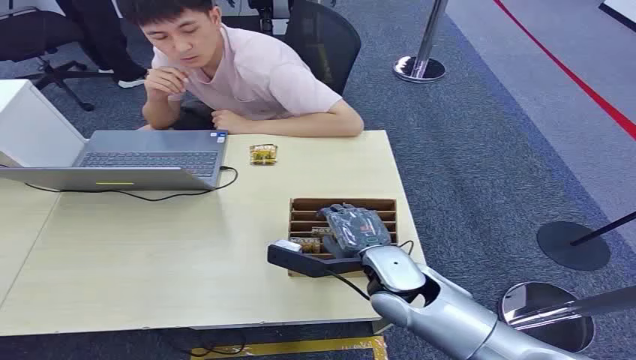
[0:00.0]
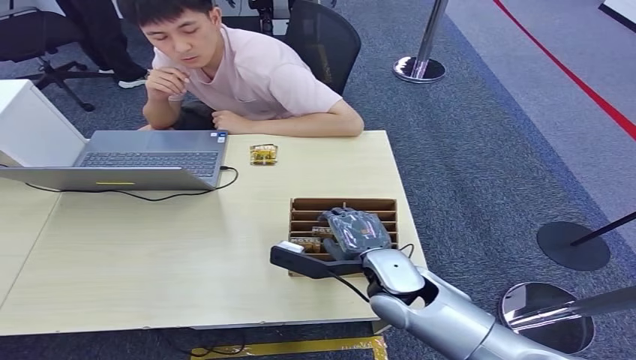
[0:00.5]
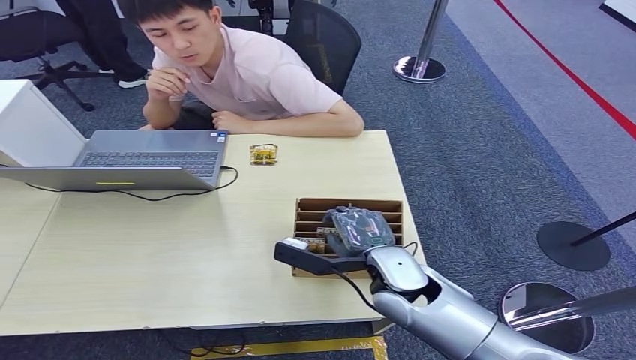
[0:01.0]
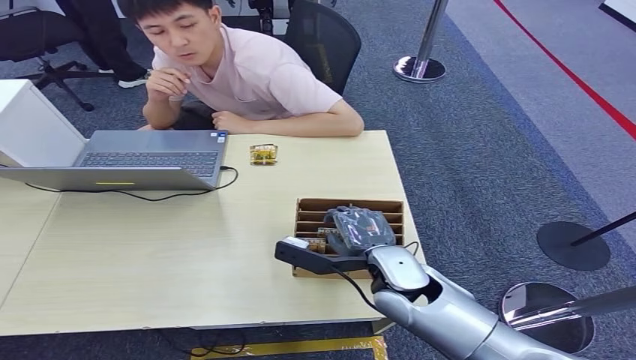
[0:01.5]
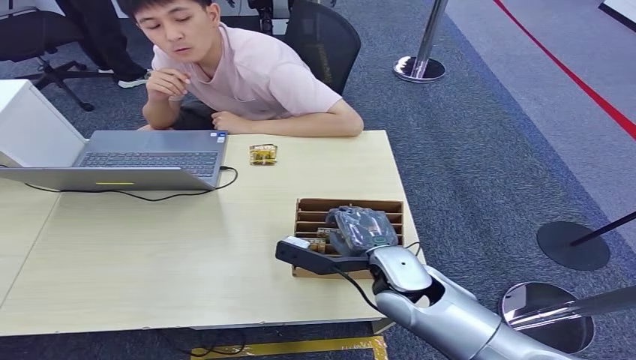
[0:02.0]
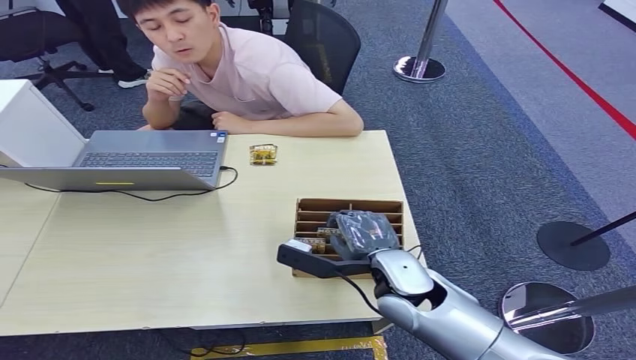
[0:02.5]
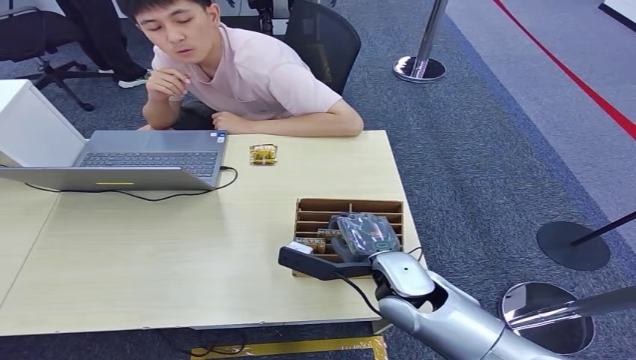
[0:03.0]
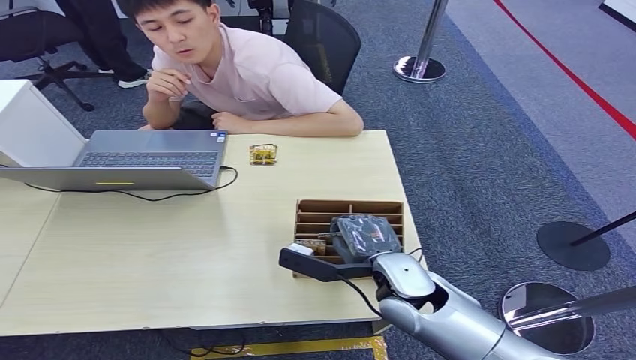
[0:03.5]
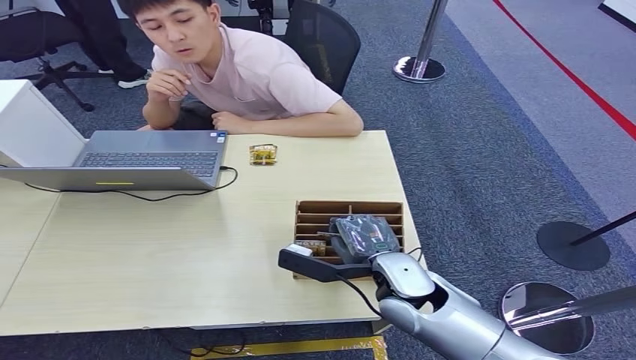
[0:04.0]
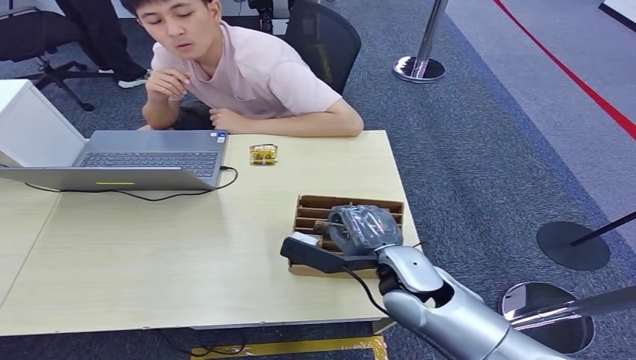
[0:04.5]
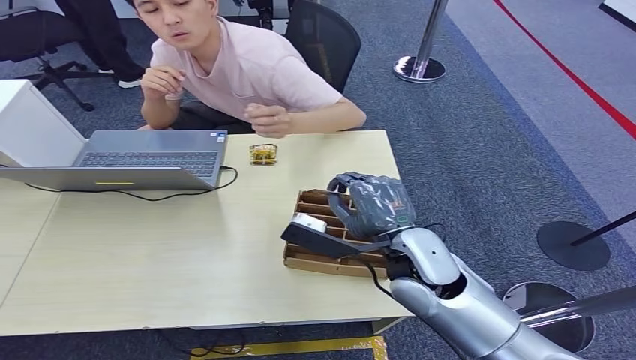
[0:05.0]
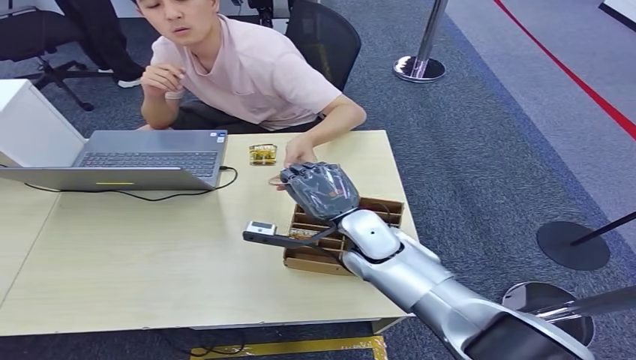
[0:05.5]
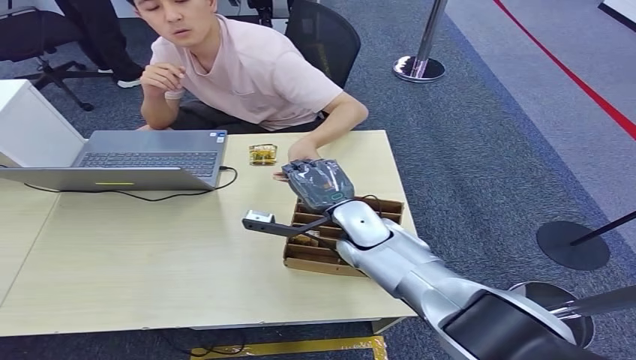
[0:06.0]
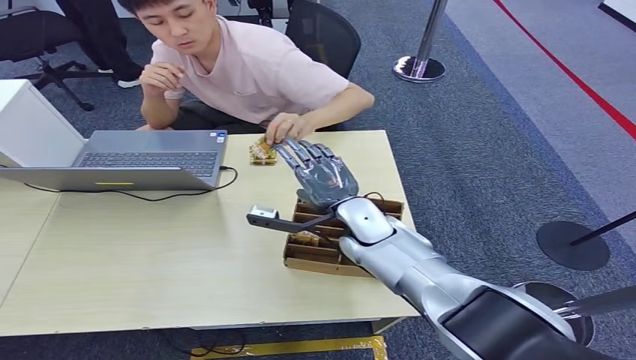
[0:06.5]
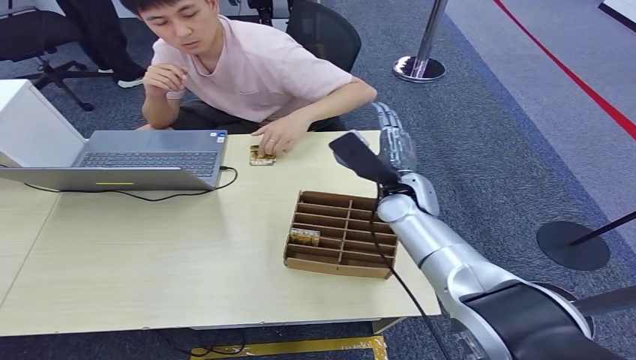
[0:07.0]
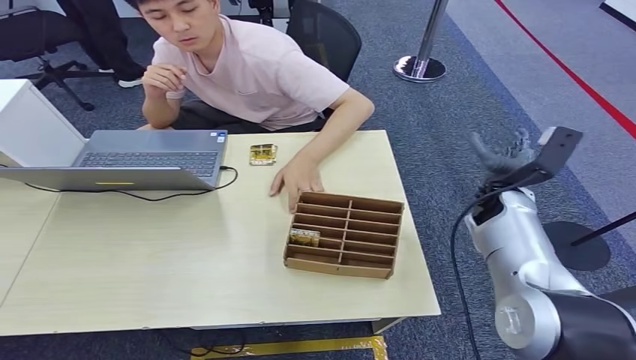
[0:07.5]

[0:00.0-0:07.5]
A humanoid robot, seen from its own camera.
Step, 0:00.0 to 0:04.5: Pick up the room card from the card holder.
Step, 0:05.0 to 0:07.5: Hand the room card to the target.
0:02.0 to 0:04.0: Both hands stay put.
0:04.0 to 0:05.5: The right hand travels forward by roughly 10 cm.
0:05.5 to 0:07.5: The right hand goes approximately 25 cm to the right.
